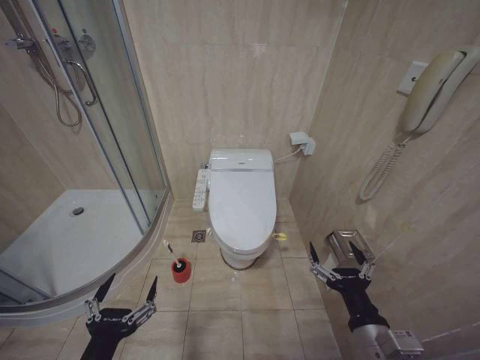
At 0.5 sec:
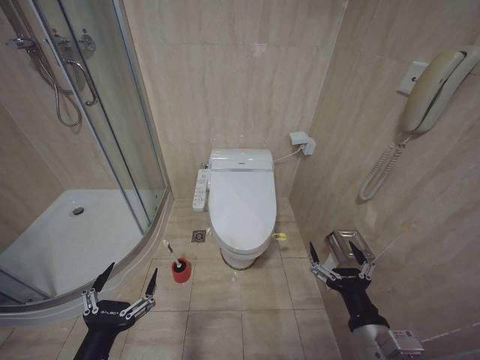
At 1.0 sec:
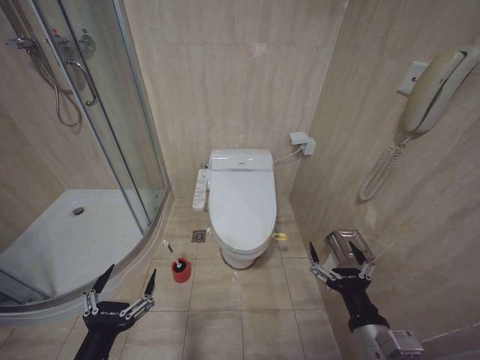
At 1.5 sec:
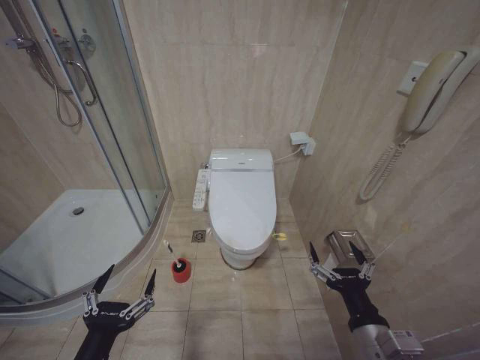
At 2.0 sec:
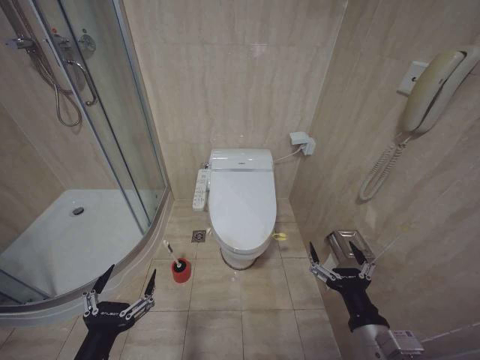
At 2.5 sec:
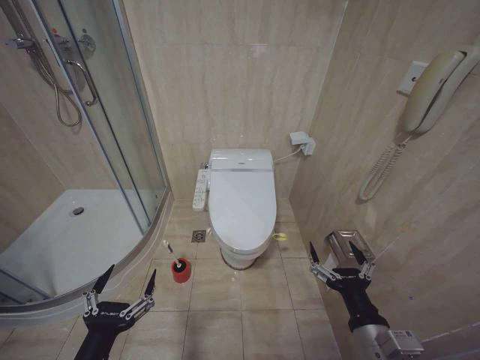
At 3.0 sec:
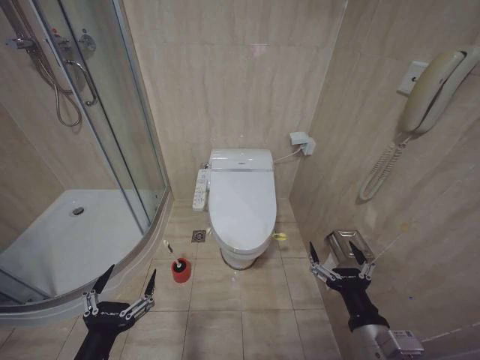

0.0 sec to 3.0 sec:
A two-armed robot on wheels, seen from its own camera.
Task of the whole recording: Open the toilet lid, clean the toilet bowl with a toilet brush, close the toilet lid, and flush.
0.0 sec to 1.5 sec: There are only small adjustments of the grippers.
1.5 sec to 3.0 sec: Neither gripper changes place.

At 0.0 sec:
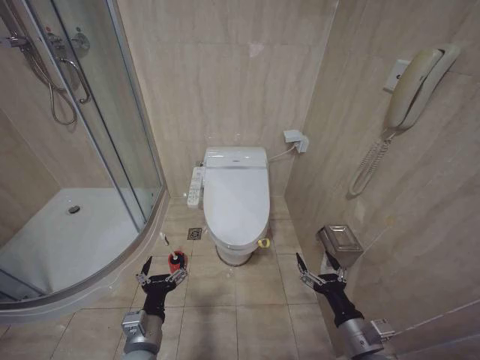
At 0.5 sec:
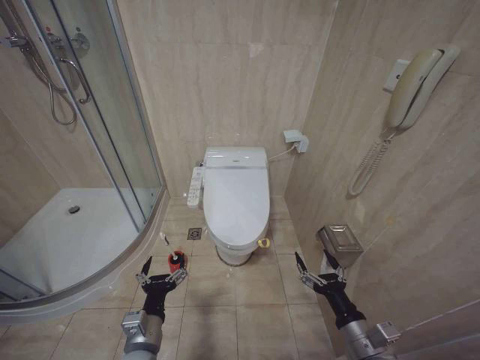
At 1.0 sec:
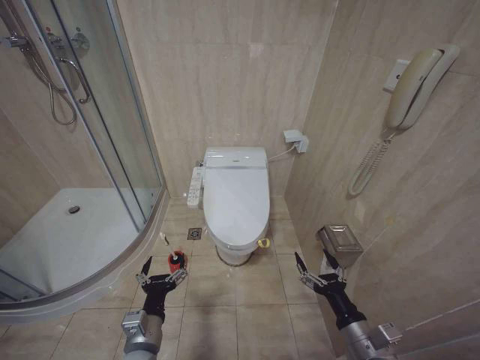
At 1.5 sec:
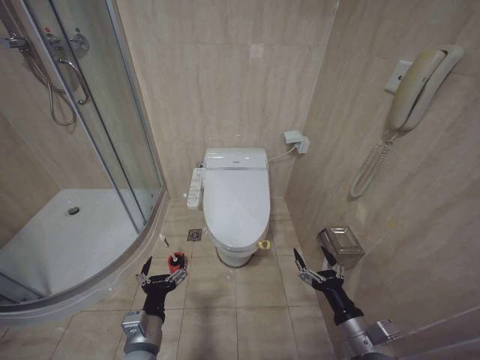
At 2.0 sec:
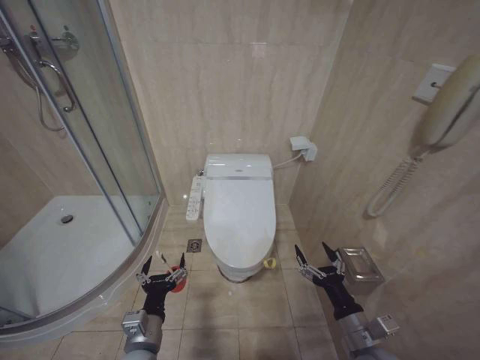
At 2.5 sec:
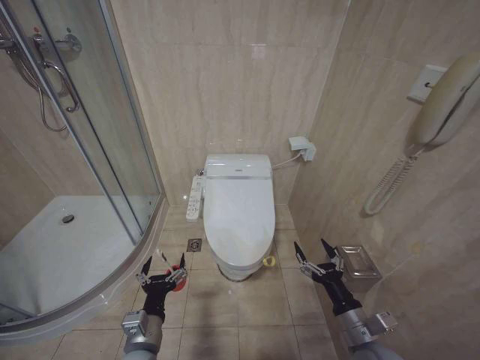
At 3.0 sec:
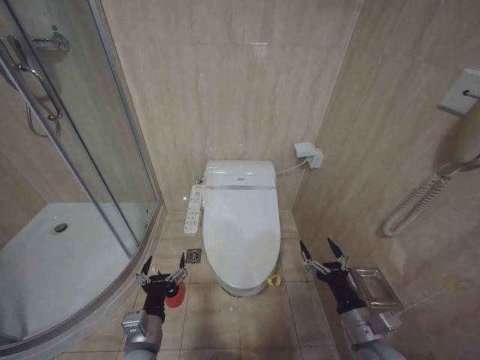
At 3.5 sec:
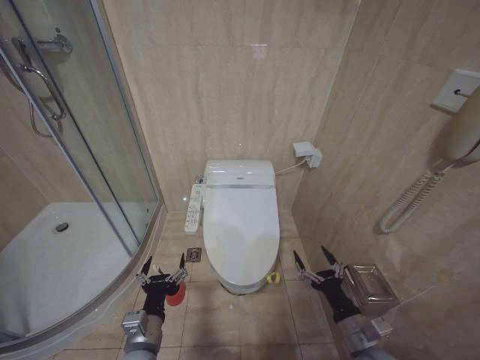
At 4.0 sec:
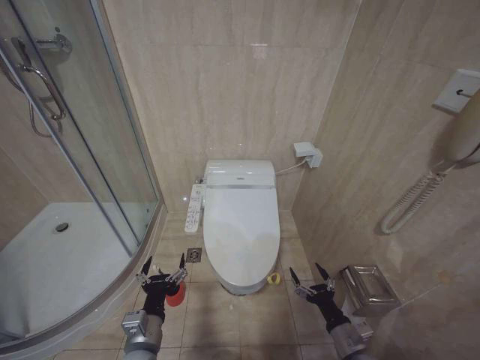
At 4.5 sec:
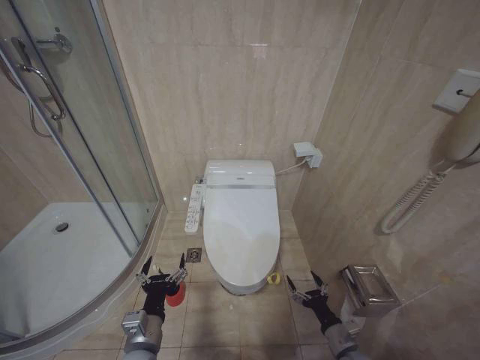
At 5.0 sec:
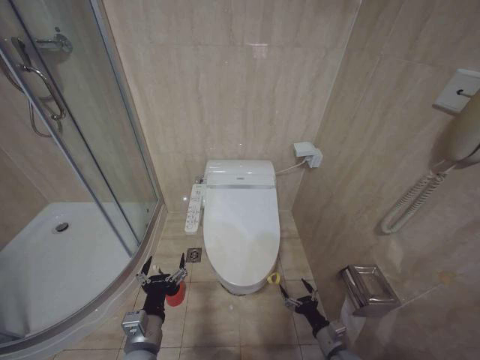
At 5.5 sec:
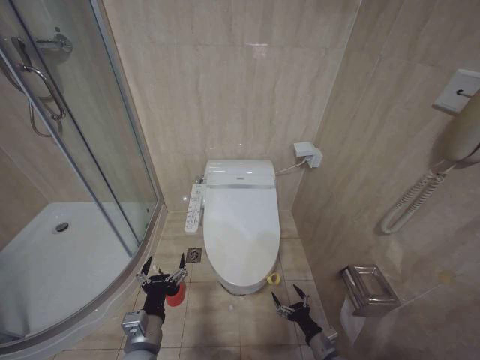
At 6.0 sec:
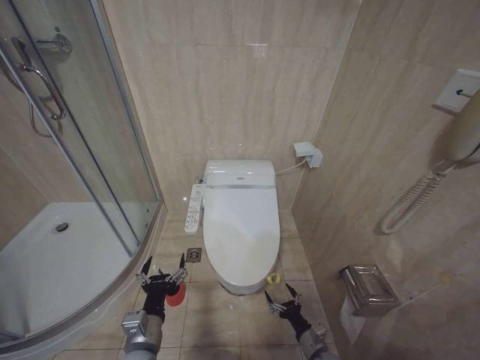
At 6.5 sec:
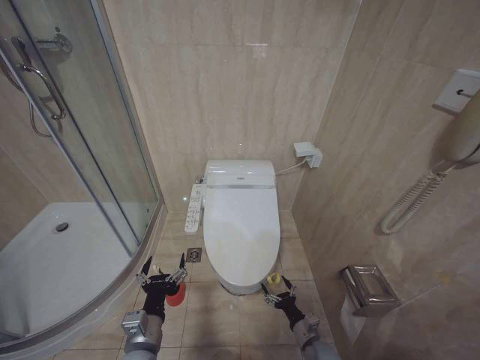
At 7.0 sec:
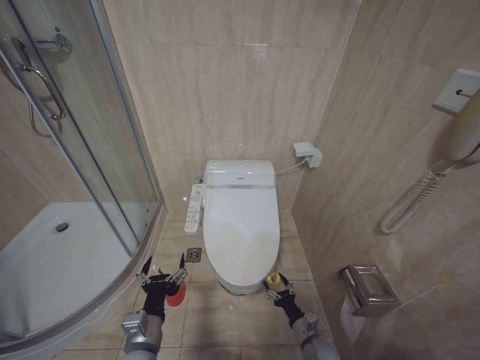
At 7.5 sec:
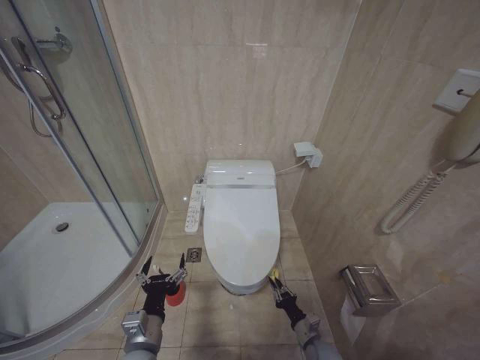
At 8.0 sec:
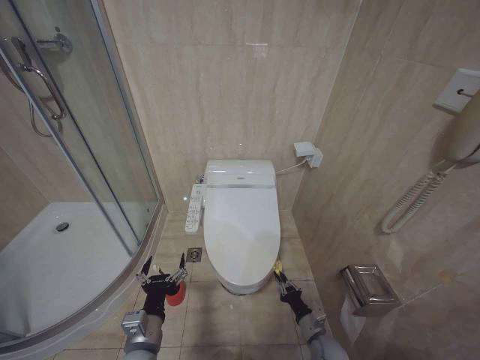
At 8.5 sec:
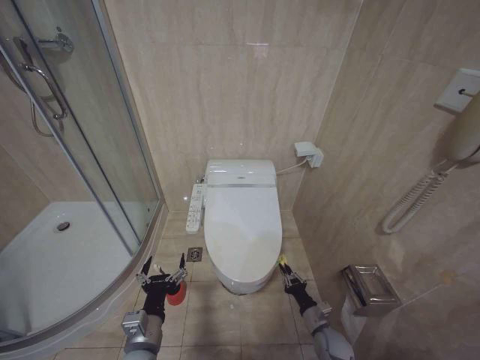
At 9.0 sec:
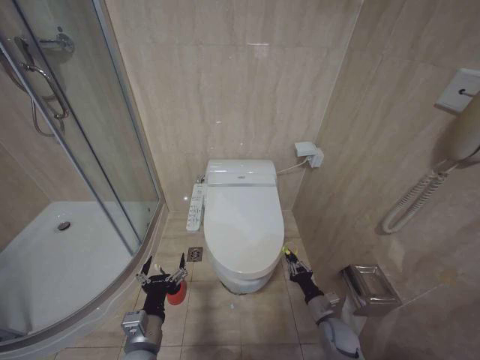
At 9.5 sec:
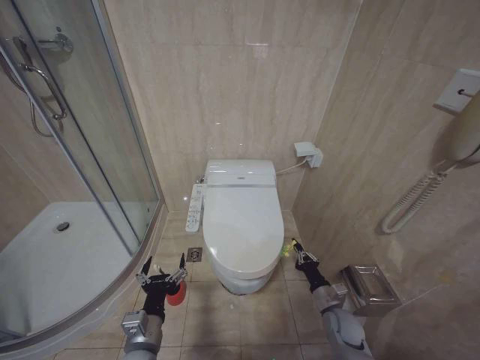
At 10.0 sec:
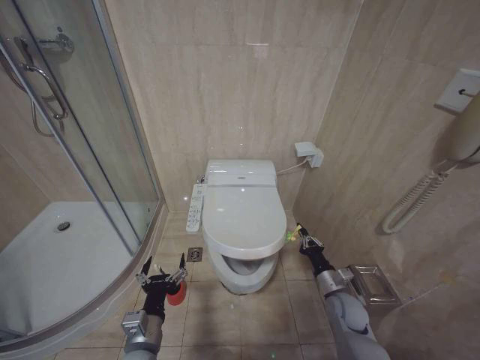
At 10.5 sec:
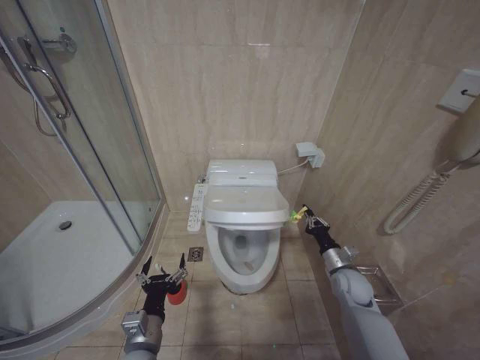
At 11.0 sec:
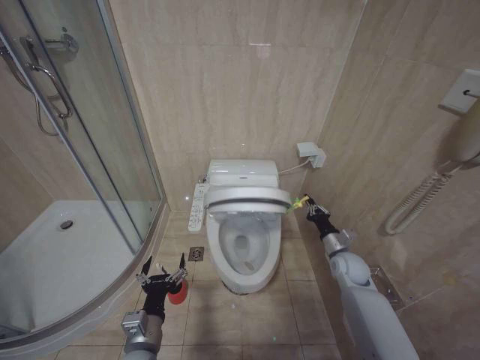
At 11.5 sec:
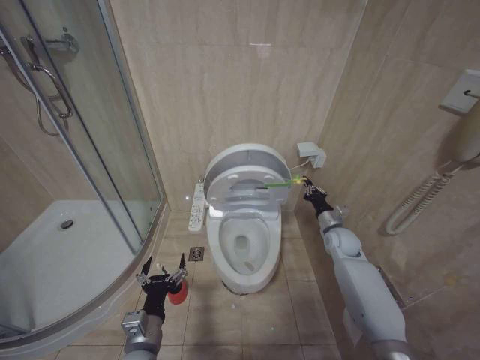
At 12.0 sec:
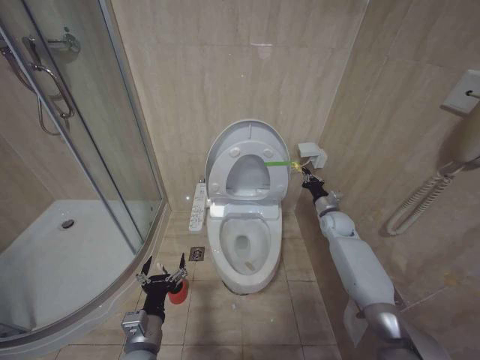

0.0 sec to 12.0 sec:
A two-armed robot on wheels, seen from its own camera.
Task of the whole recording: Open the toilet lid, clean the toilet bowl with a toilet brush, close the toilet lid, and flush.
2.0 sec to 4.0 sec: The right gripper travels downward by roughly 10 cm.
4.0 sec to 6.0 sec: The right gripper moves downward, about 15 cm.
6.0 sec to 8.0 sec: The right gripper closes up.
8.0 sec to 10.0 sec: The right gripper shifts some 15 cm upward and forward.
10.0 sec to 12.0 sec: The right gripper travels forward and upward by some 25 cm.

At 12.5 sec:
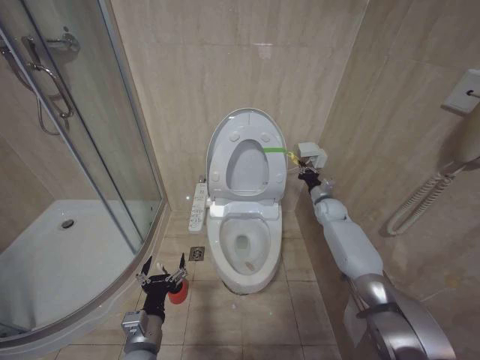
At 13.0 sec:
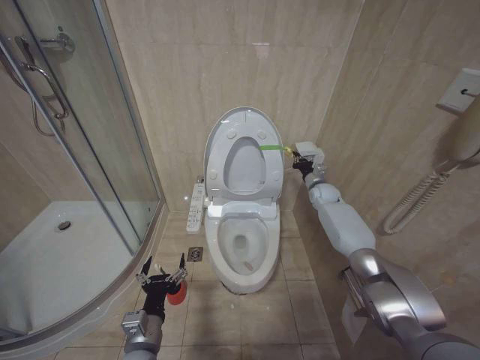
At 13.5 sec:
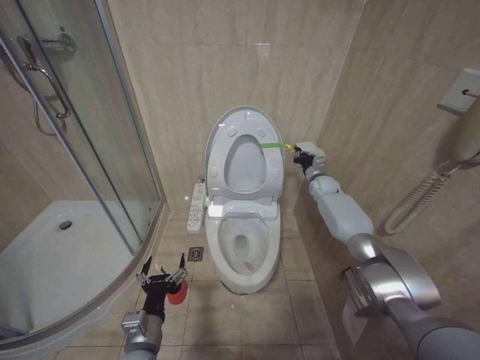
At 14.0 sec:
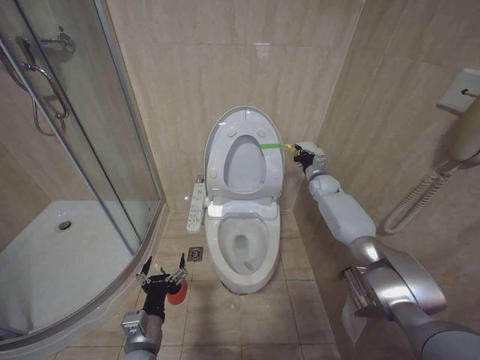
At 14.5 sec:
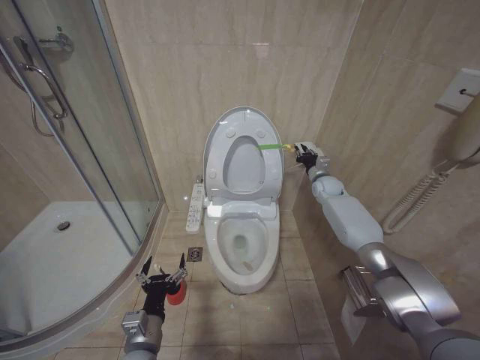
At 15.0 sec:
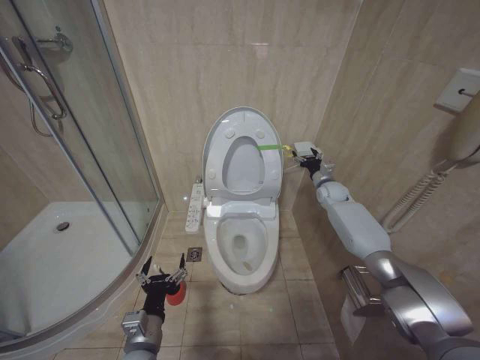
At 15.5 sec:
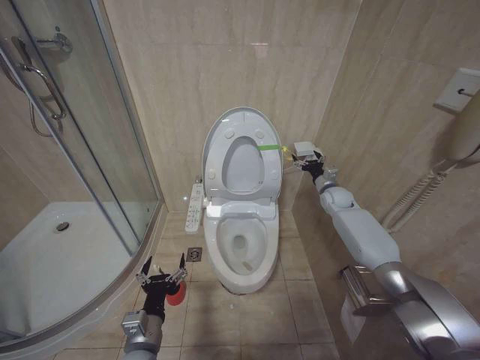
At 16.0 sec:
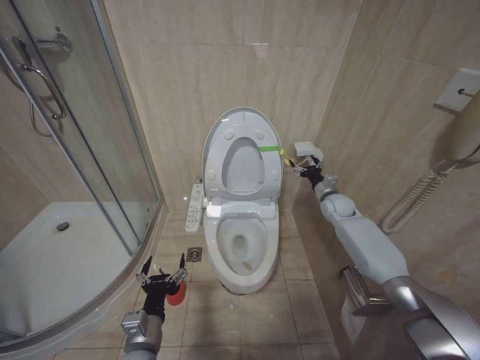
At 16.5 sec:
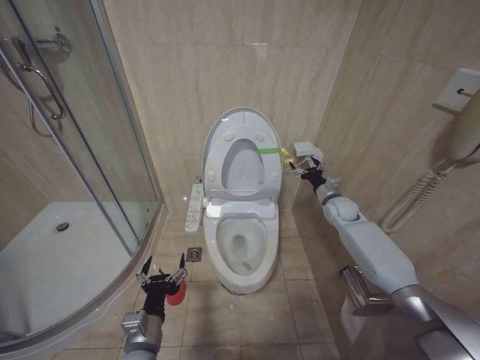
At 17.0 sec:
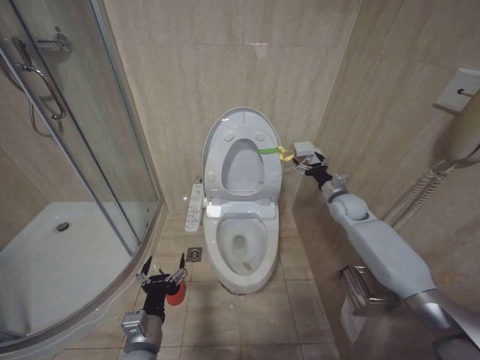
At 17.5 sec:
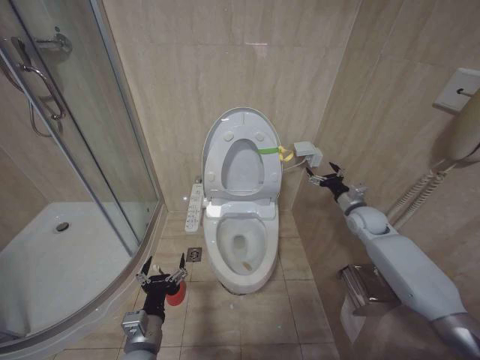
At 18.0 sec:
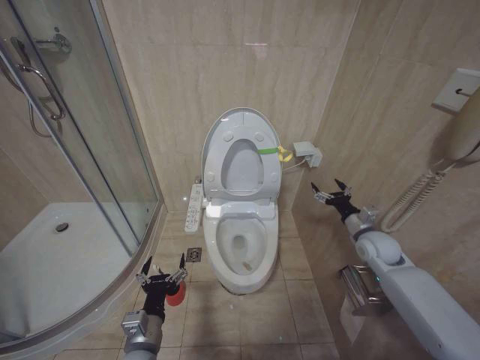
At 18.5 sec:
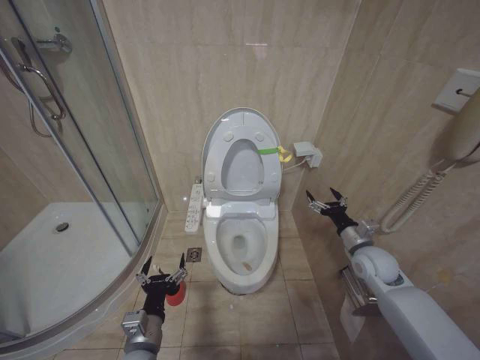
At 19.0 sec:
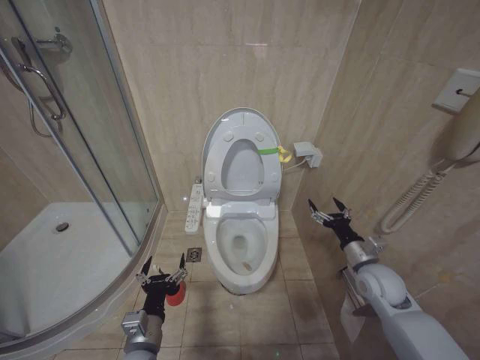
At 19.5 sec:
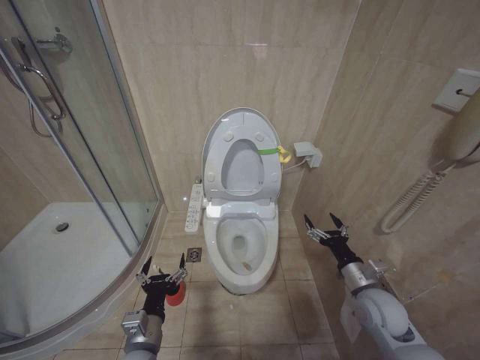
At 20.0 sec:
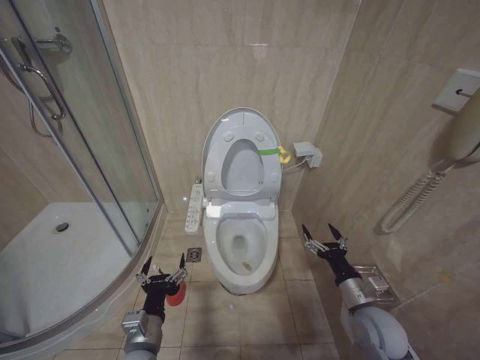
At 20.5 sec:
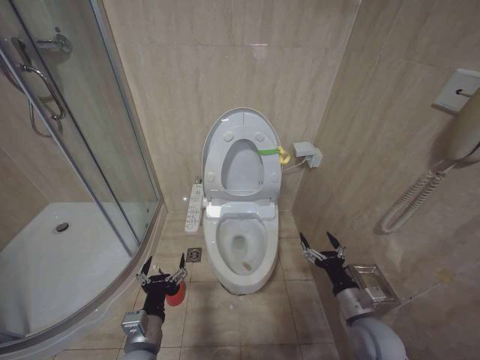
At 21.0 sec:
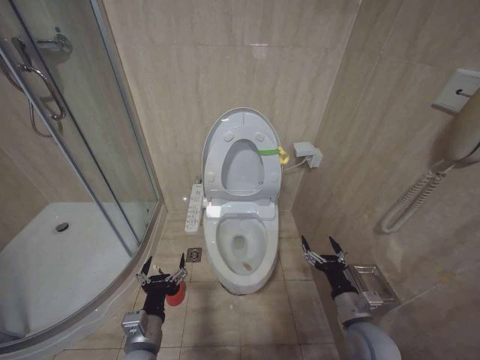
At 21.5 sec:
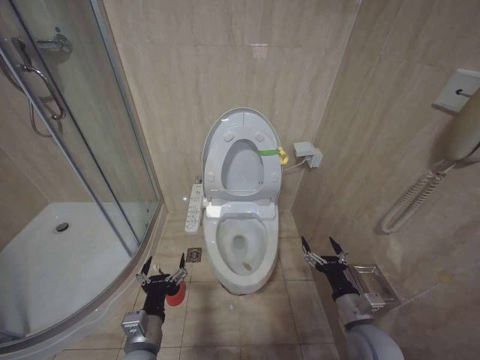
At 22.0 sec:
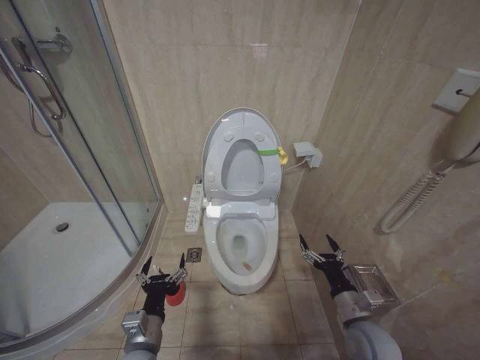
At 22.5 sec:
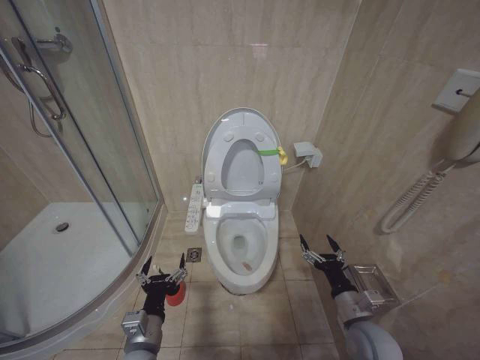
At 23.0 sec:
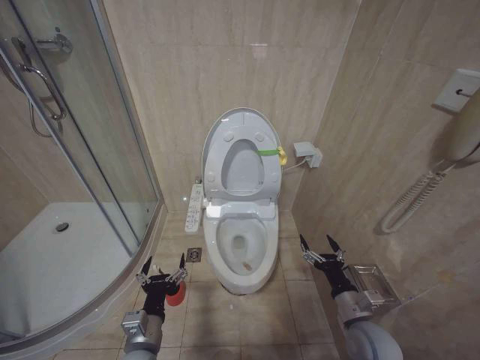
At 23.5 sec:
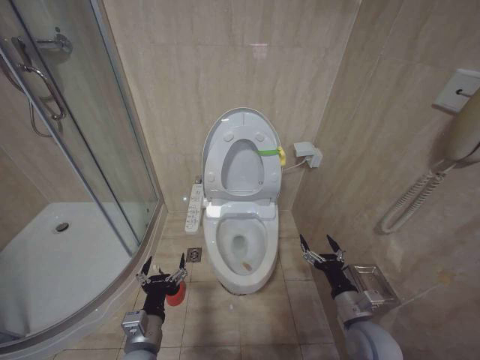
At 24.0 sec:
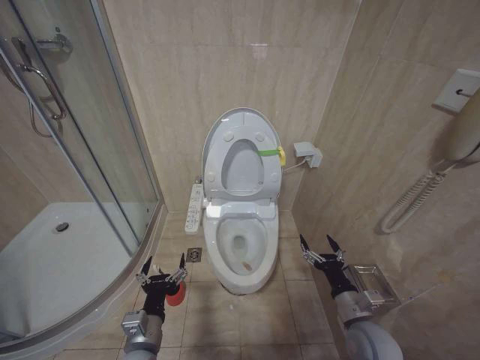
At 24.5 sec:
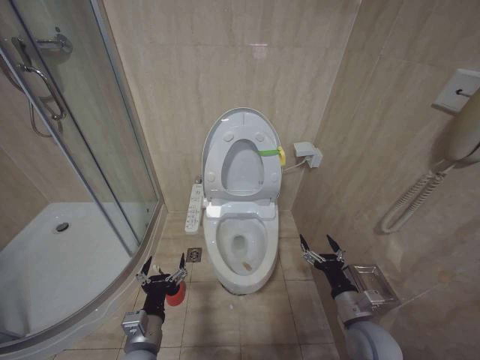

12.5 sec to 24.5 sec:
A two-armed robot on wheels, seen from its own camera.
Task of the whole recording: Open the toilet lid, clean the toilet bowl with a toilet brush, close the toilet lid, and flush.
12.5 sec to 14.5 sec: The right gripper goes roughly 10 cm upward and forward.
14.5 sec to 16.5 sec: The right gripper shifts some 10 cm backward, and opens its fingers.
16.5 sec to 18.5 sec: The right gripper is displaced backward by about 15 cm.
18.5 sec to 20.5 sec: The right gripper is displaced backward, downward and to the left by approximately 15 cm.
22.5 sec to 24.5 sec: Neither gripper changes place.
